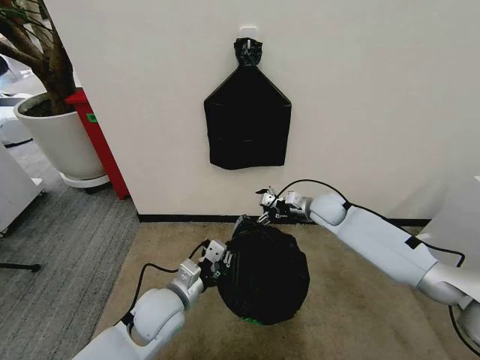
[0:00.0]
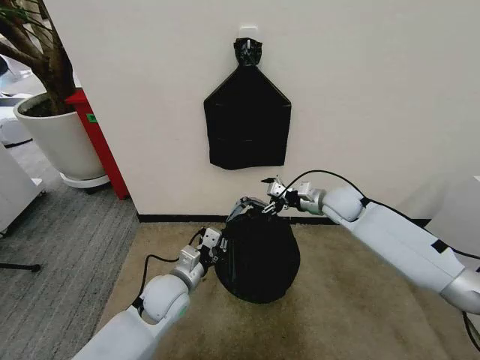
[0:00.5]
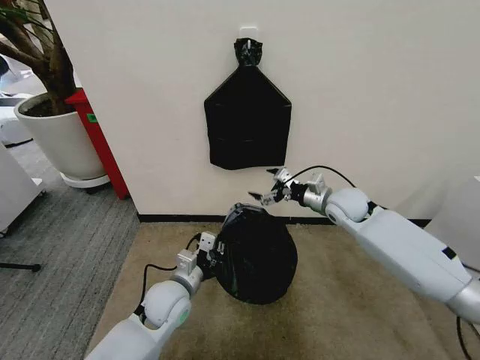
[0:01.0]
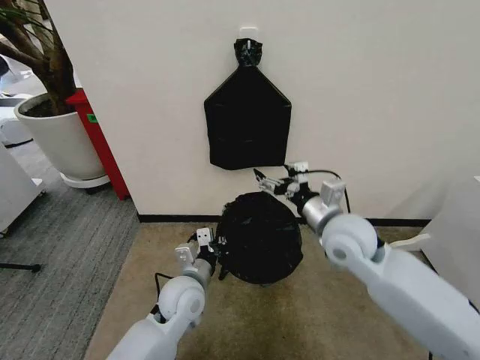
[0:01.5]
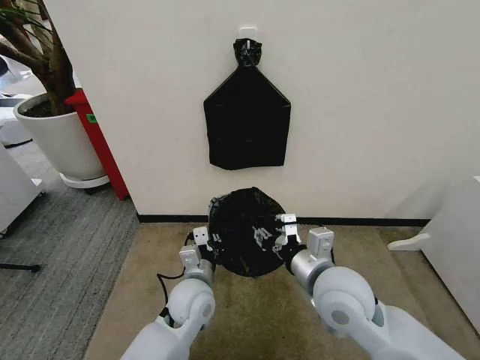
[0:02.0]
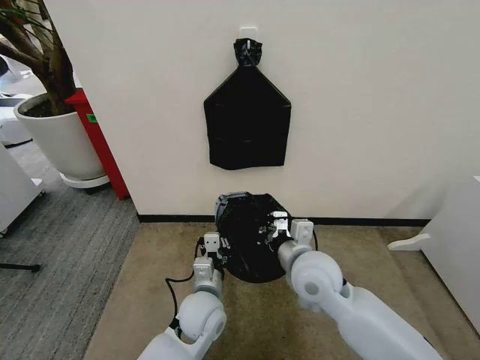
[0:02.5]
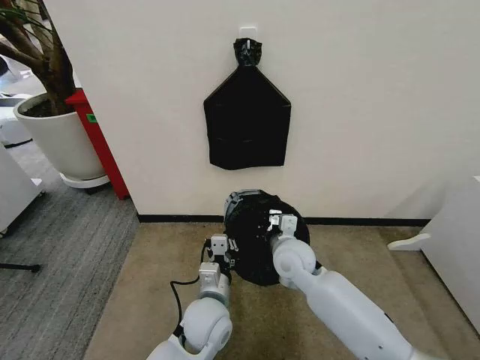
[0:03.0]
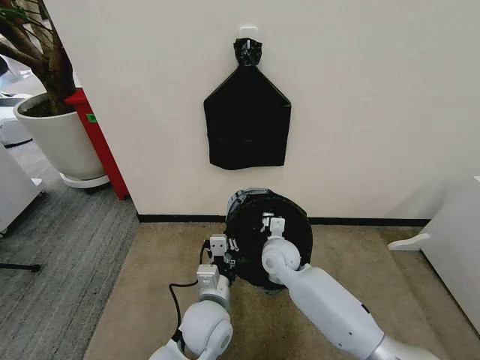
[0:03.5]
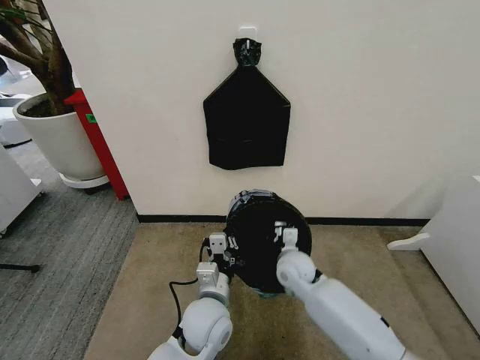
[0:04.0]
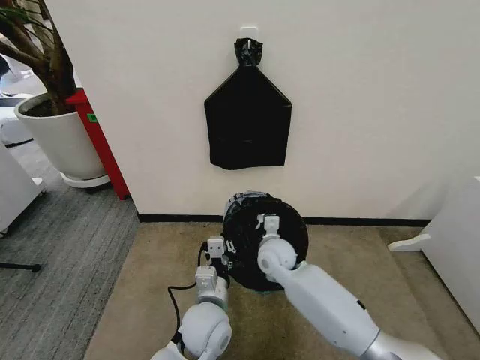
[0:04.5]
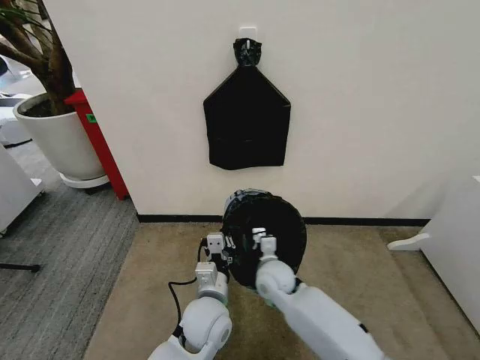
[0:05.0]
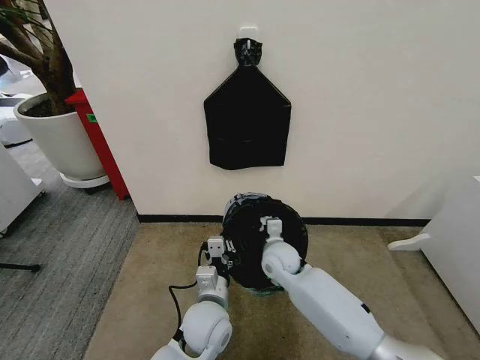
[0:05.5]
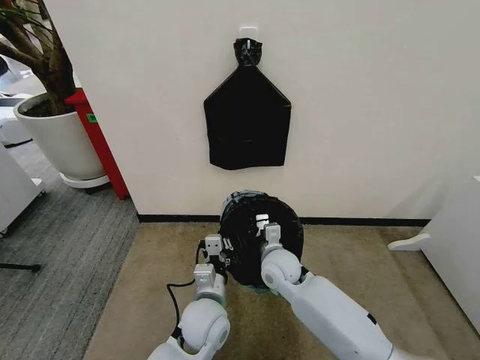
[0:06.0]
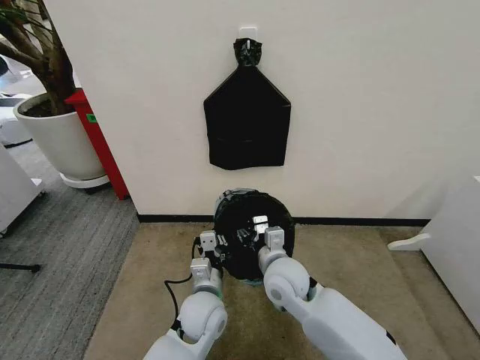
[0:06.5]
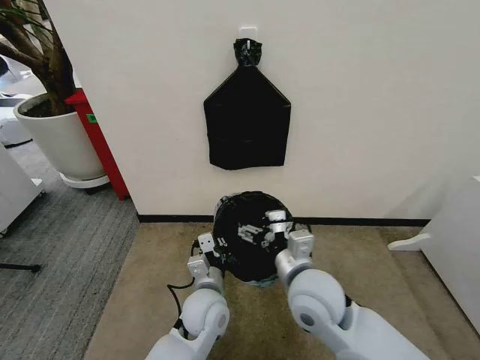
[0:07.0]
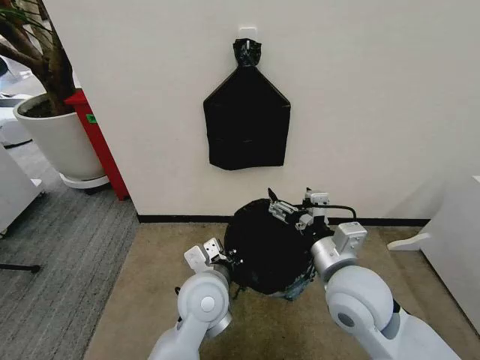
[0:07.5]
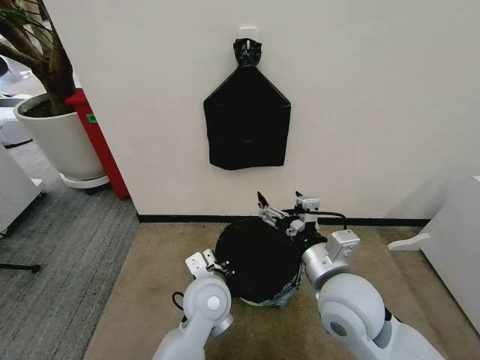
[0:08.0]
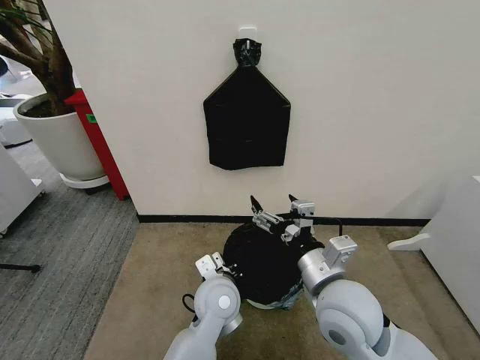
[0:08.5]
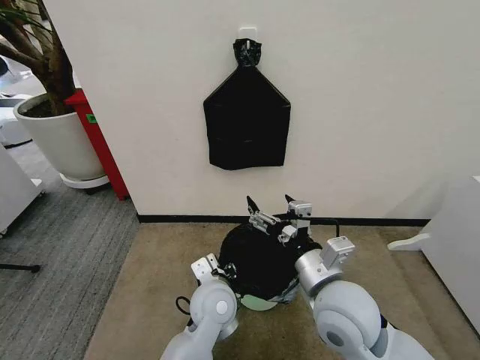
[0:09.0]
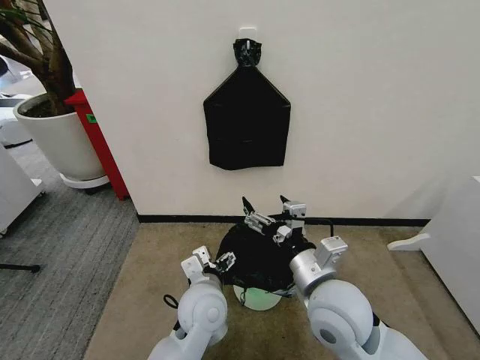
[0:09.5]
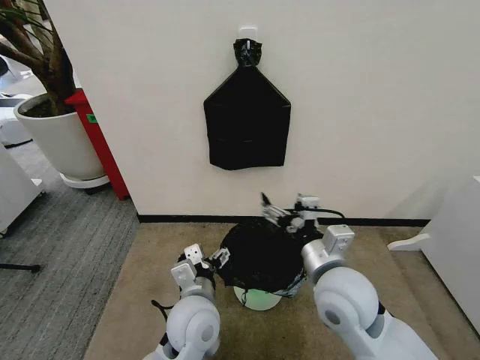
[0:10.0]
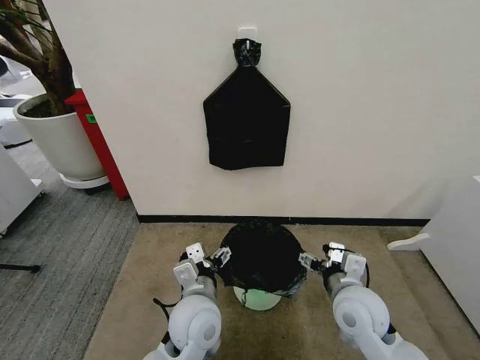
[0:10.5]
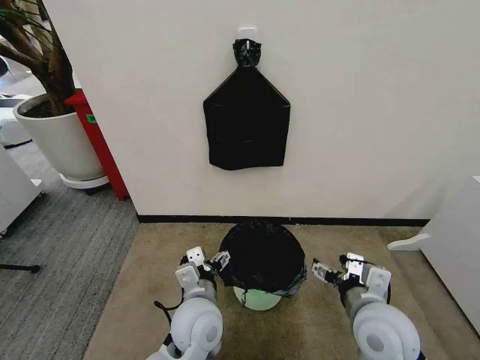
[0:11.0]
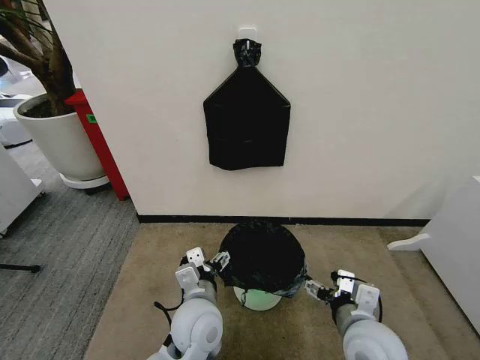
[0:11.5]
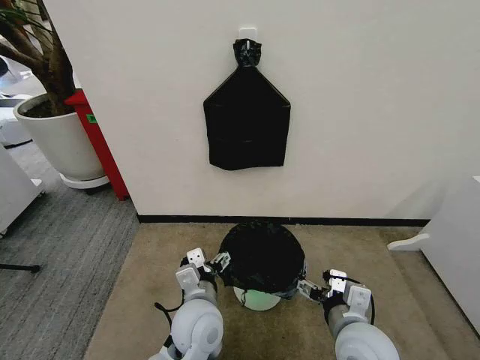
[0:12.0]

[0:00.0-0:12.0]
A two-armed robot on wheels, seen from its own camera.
Task of the whole recording: Place the garbage bag over the trash bin.
0:00.0 to 0:02.0: The left gripper is displaced to the right by roughly 5 cm. Meanwhile the right gripper travels backward by some 25 cm, and closes its fingers.
0:02.0 to 0:04.0: The left gripper shifts by about 5 cm. The right gripper moves downward and forward, approximately 20 cm, and closes its fingers.
0:06.0 to 0:08.0: The right gripper moves upward, backward and to the right, about 20 cm, and opens its fingers; the left gripper travels upward by about 5 cm.
0:08.0 to 0:10.0: The left gripper opens its fingers.
0:10.0 to 0:12.0: The right gripper travels downward and backward by about 10 cm.

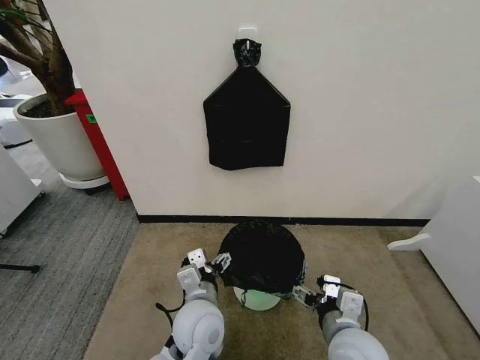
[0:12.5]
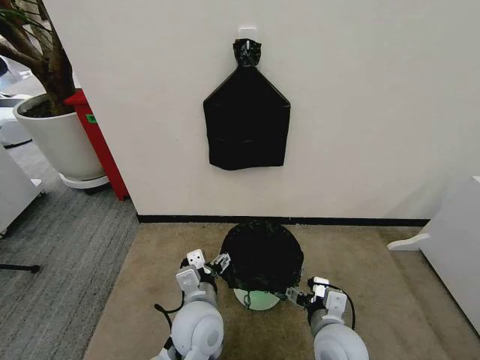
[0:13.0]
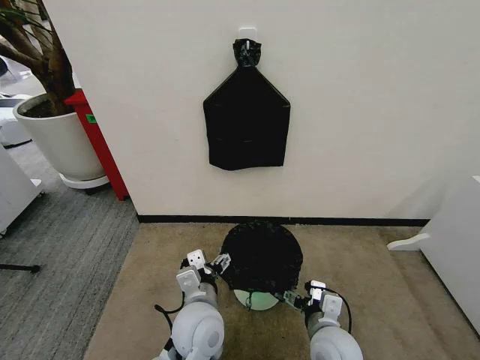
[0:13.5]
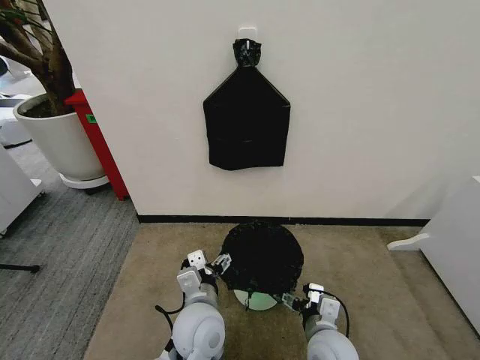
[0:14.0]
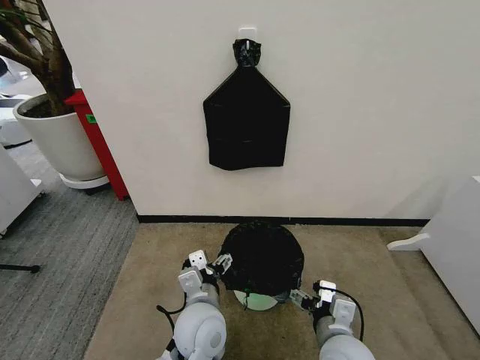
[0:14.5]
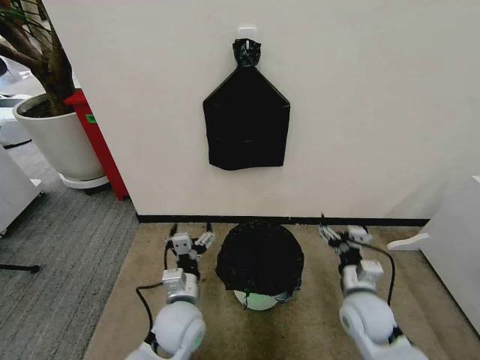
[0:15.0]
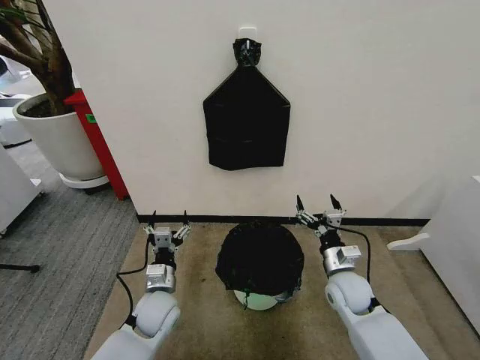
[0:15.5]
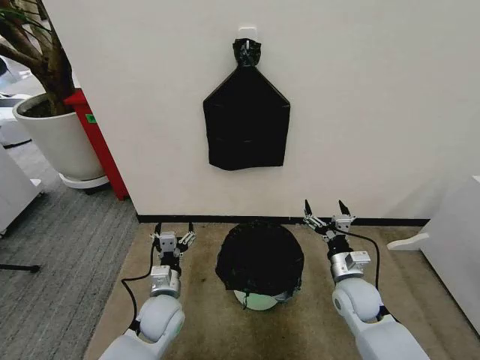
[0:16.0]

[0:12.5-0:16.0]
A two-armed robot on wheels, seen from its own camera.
Task of the whole recording: Place the garbage bag over the trash bin.
0:14.5 to 0:16.0: The right gripper heads forward and to the right, covering approximately 15 cm, while the left gripper moves to the left and downward, some 15 cm.

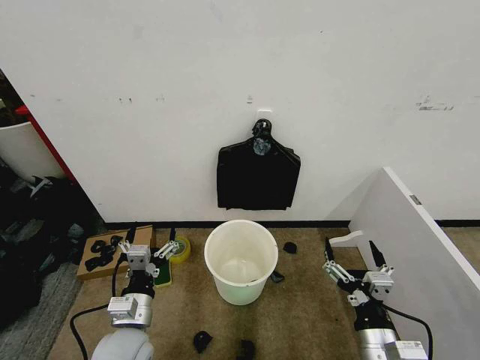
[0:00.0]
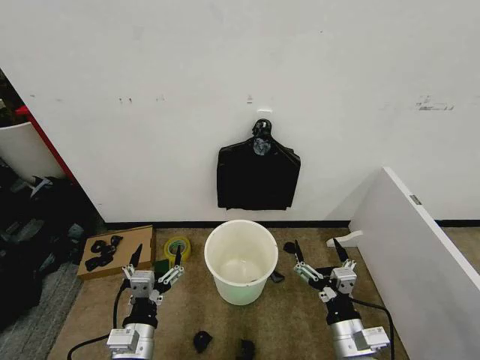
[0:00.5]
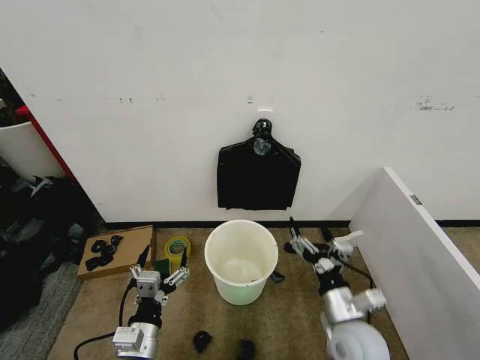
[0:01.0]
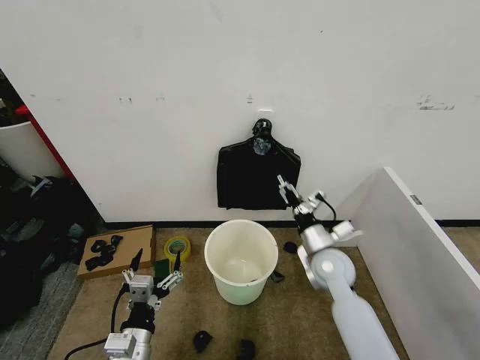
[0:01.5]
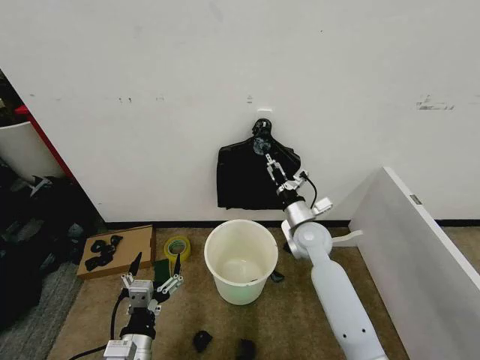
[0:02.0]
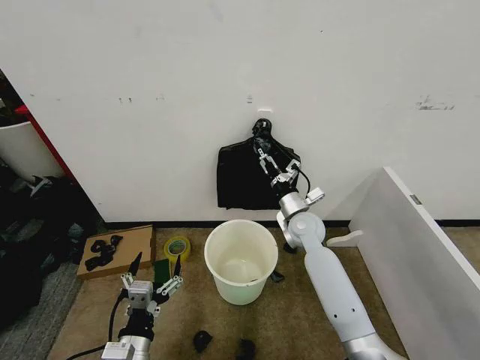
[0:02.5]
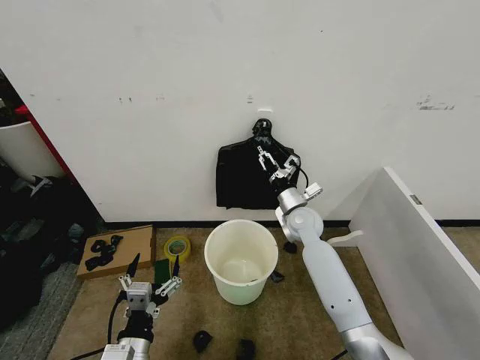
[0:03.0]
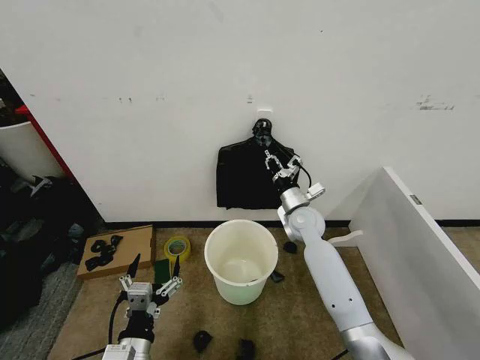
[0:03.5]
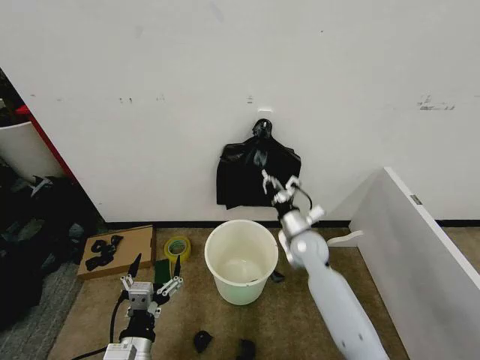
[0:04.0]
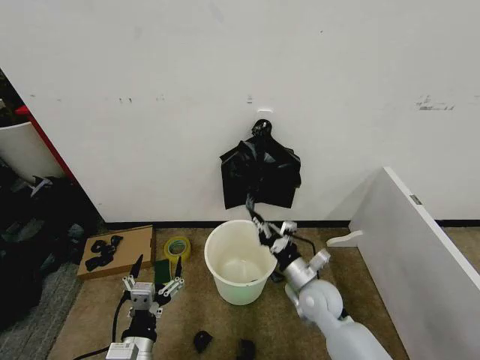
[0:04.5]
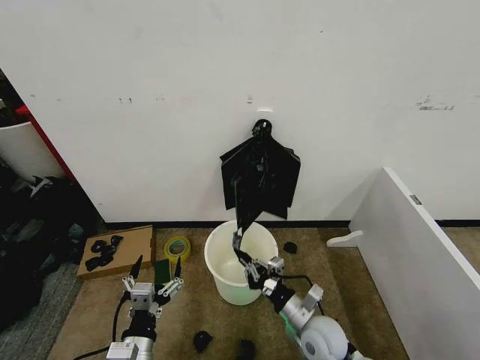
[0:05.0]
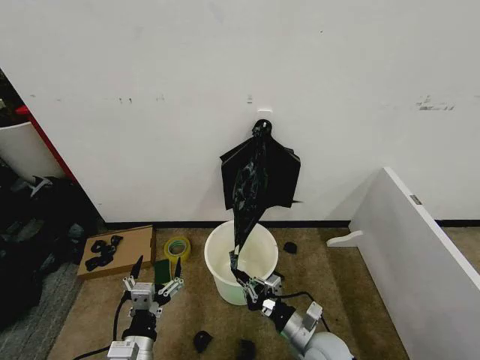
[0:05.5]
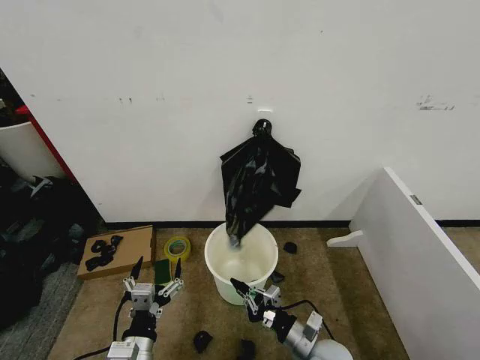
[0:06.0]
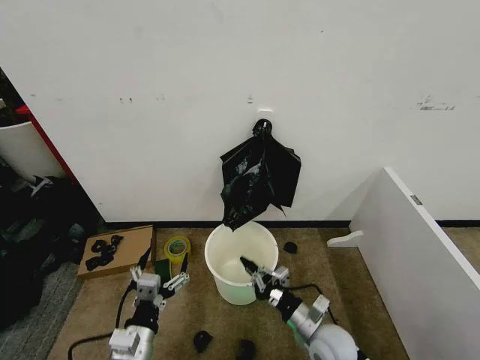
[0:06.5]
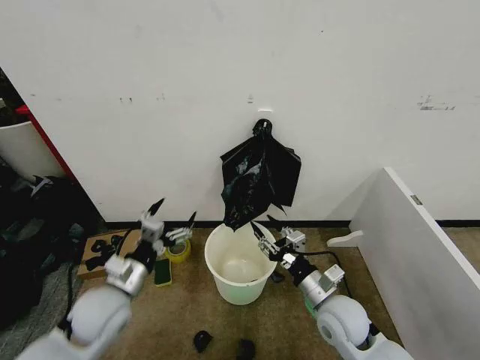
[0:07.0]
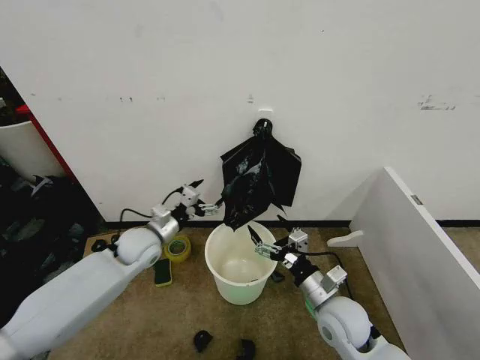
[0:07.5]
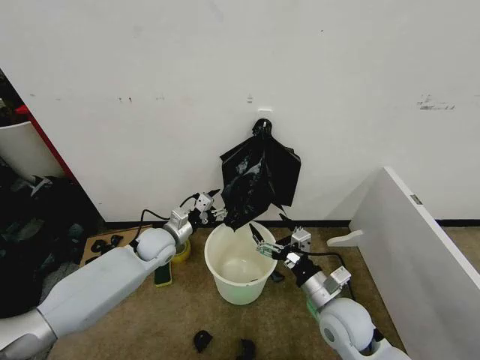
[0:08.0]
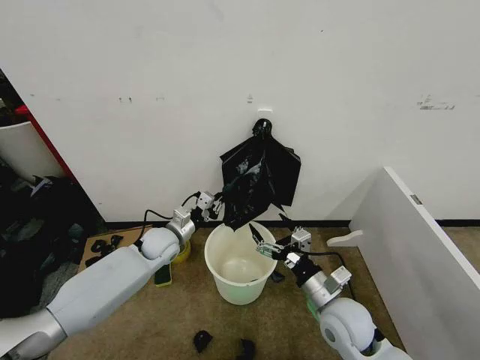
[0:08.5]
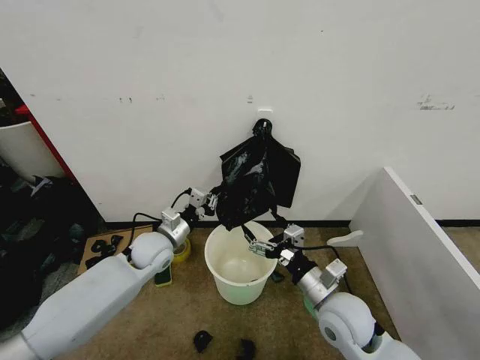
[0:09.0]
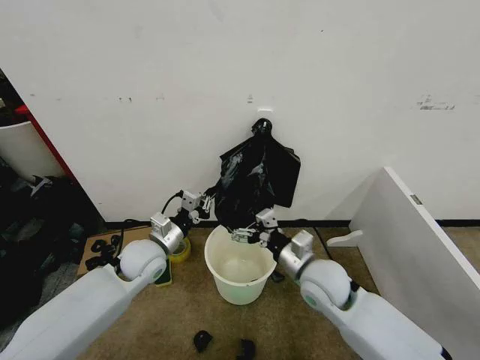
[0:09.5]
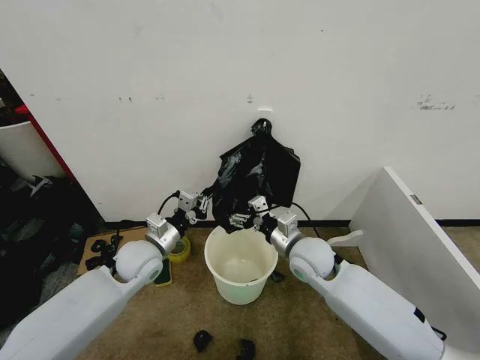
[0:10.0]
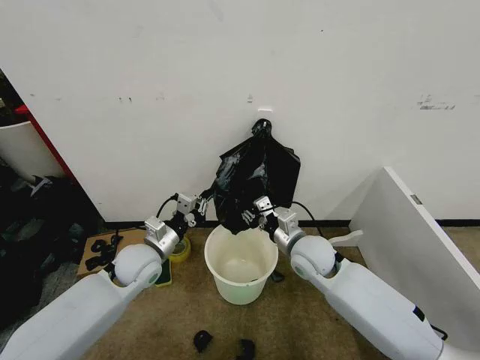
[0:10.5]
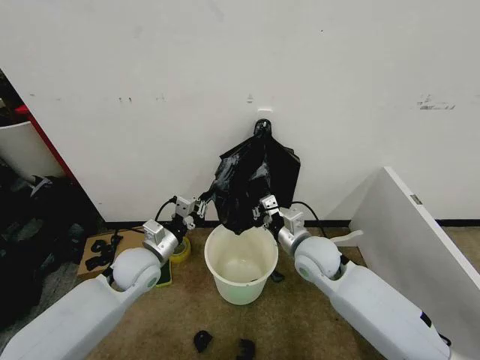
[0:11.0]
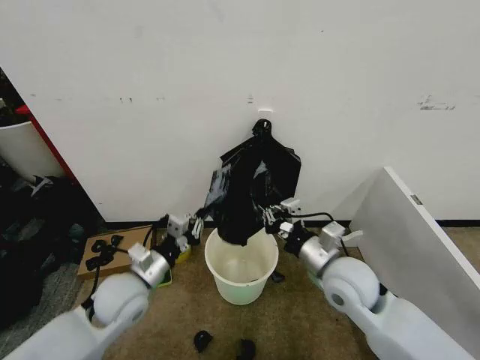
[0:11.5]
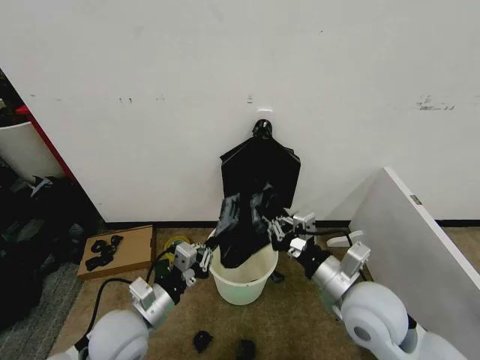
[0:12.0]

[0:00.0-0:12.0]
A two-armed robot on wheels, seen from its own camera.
Task of the whole recording: Place the garbage bag over the trash bin.
0:02.0 to 0:04.0: The right gripper closes up.
0:04.0 to 0:06.0: The right gripper shifts roughly 25 cm backward and downward.
0:06.0 to 0:08.0: The right gripper goes roughly 10 cm upward and forward, and opens up; the left gripper goes roughly 30 cm forward, and closes up.
0:08.0 to 0:10.0: The left gripper heads backward, covering roughly 5 cm, and closes its fingers; the right gripper shifts roughly 10 cm forward and to the left.
0:10.0 to 0:12.0: The left gripper goes approximately 15 cm backward. Meanwhile the right gripper goes roughly 15 cm backward, upward and to the right, and closes.
